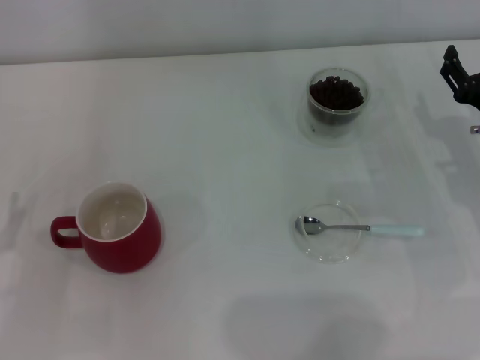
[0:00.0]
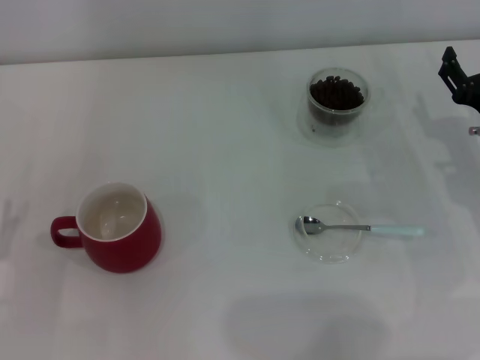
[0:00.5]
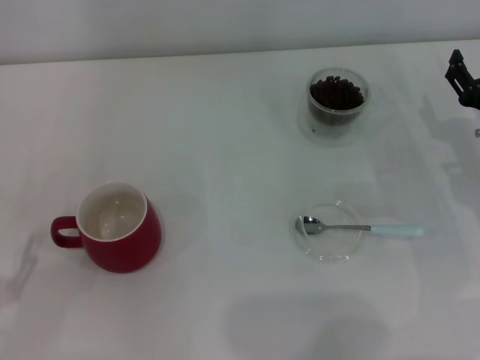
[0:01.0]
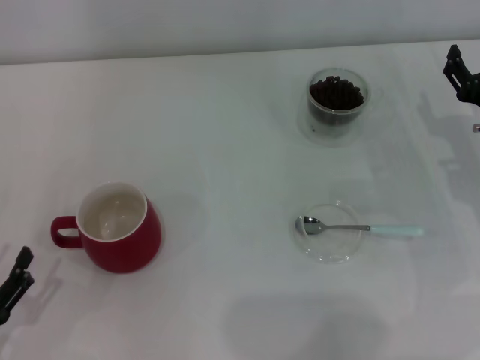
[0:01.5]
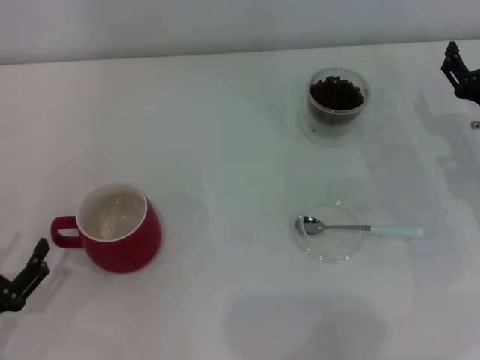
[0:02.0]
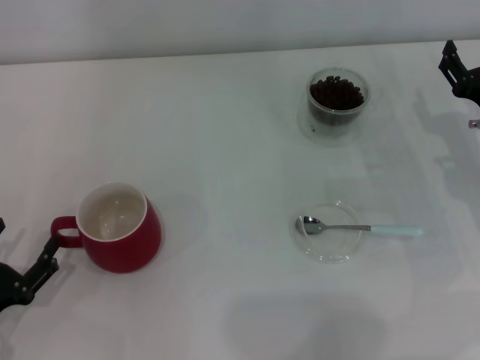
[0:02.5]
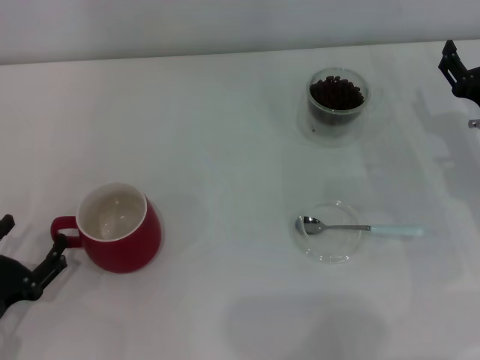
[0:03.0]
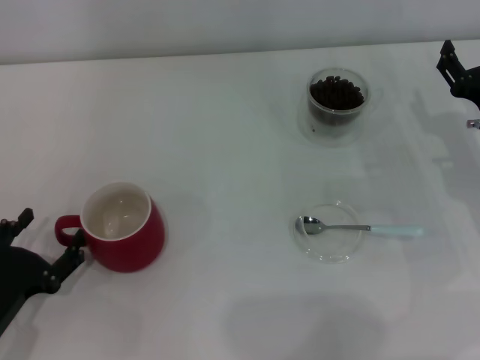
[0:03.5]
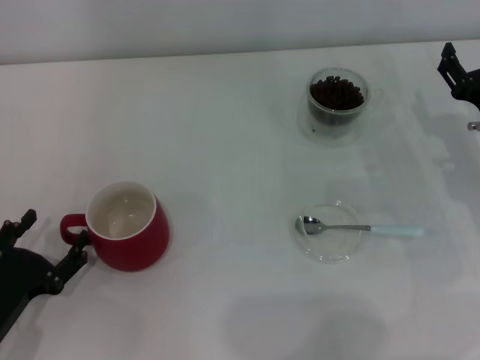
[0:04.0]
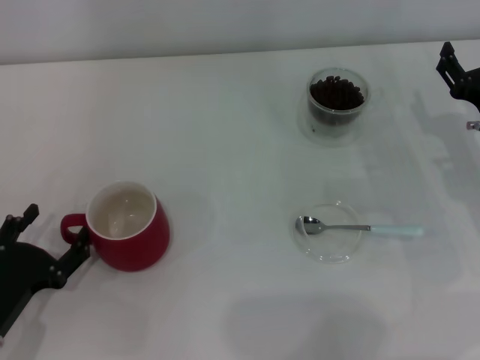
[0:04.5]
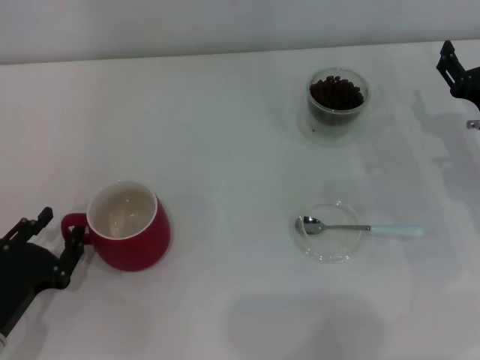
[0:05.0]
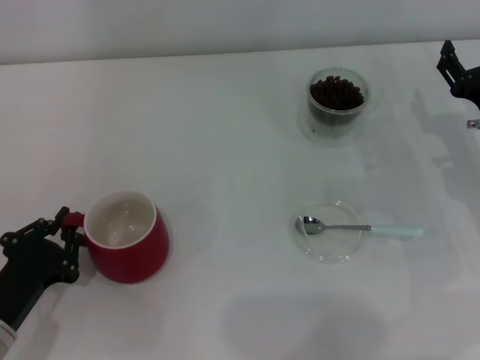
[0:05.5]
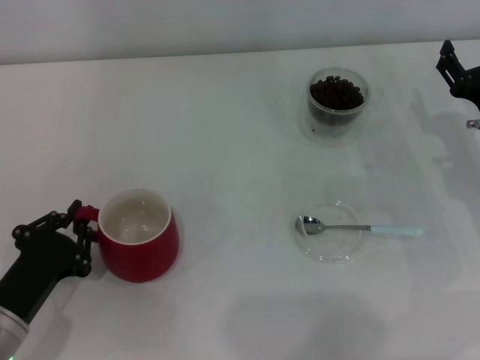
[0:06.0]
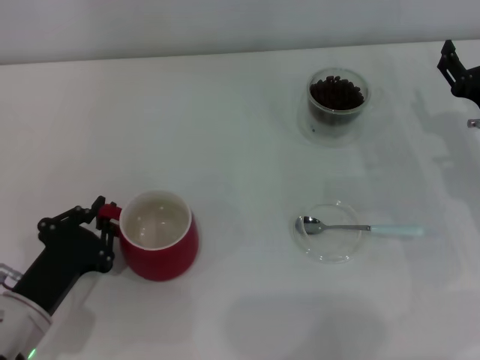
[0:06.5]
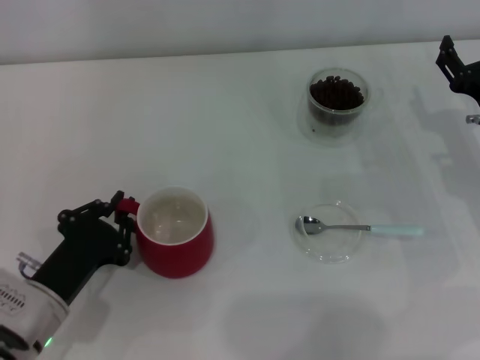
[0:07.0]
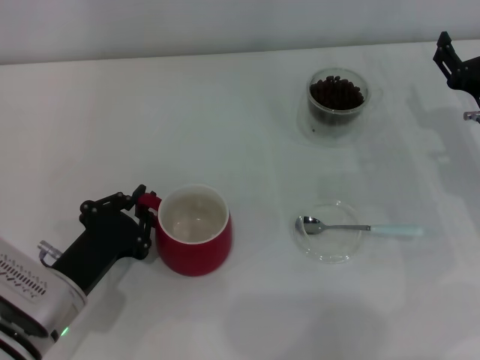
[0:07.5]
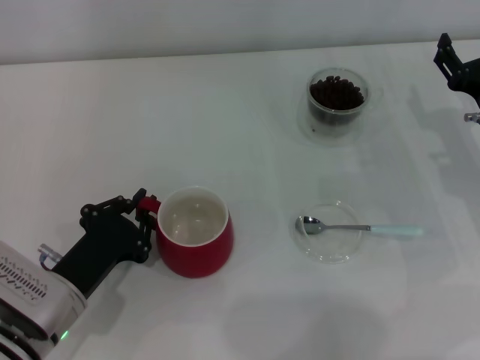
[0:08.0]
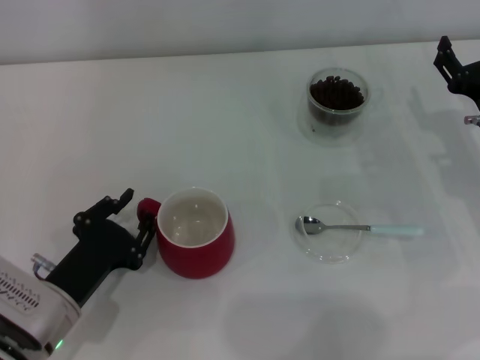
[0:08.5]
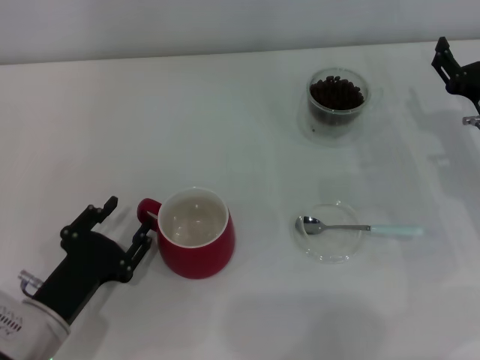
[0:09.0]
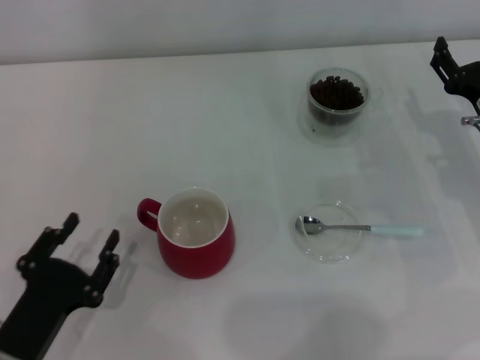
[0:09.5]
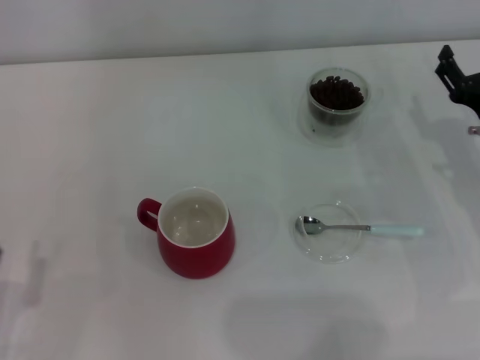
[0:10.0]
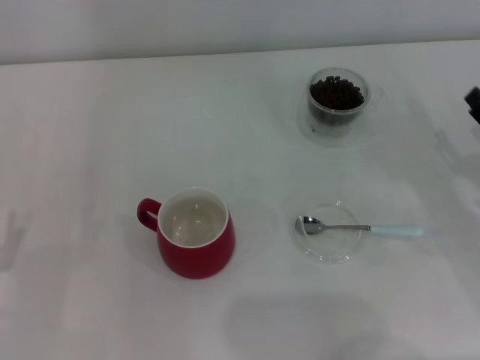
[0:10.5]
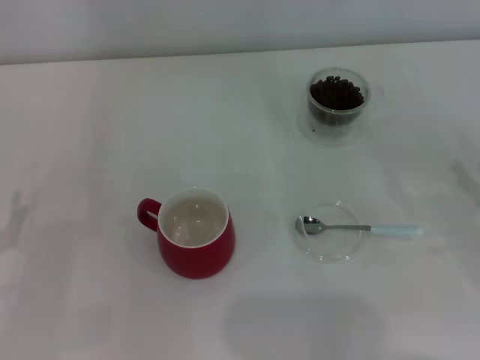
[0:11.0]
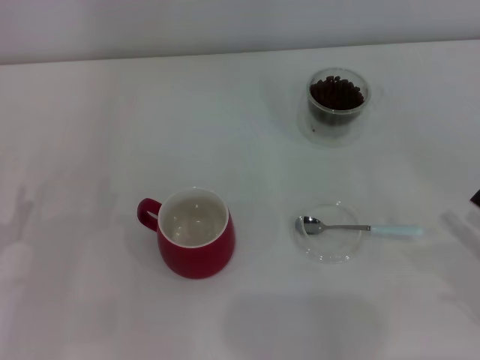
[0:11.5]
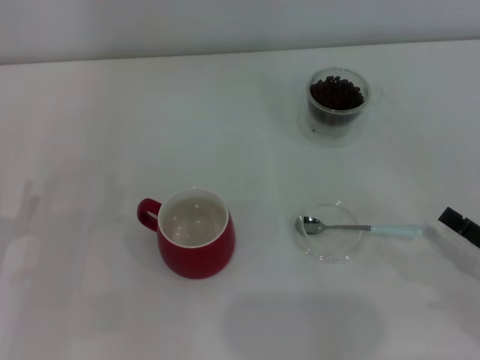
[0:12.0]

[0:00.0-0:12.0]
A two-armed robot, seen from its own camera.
Task of the whole recording: Use a blue spoon to take out the coffee beans from the glass and pour them into the red cup.
Step, 0:00.0 to 0:09.0: Move the cup to the center of view with the left gripper.
0:02.0 to 0:04.0: The grippers make only small movements.
0:04.0 to 0:06.0: The left gripper closes its fingers.
0:06.0 to 0:08.0: The left gripper changes place by approximately 5 cm.
0:08.0 to 0:10.0: The left gripper travels backward and to the left by some 10 cm, and opens up.
0:10.0 to 0:12.0: The right gripper heads backward, covering some 15 cm.

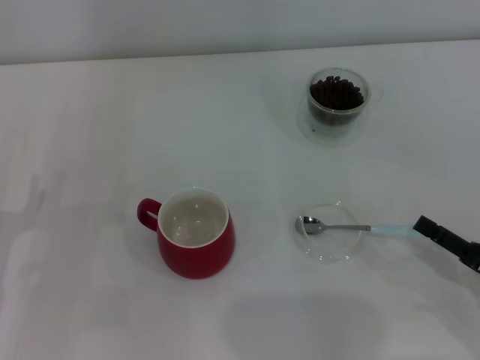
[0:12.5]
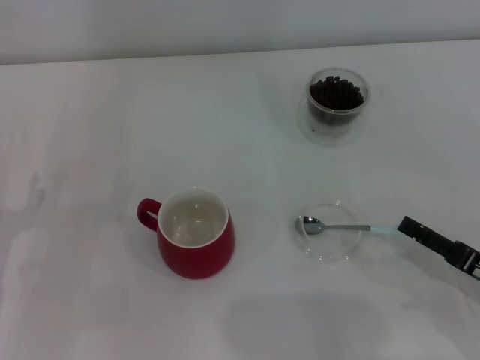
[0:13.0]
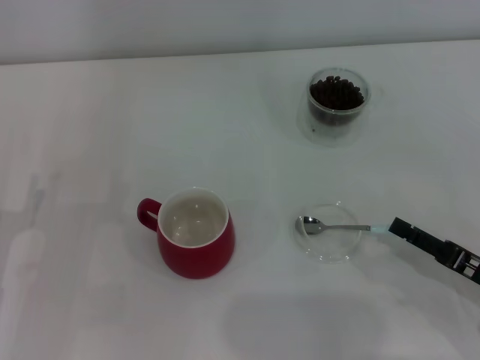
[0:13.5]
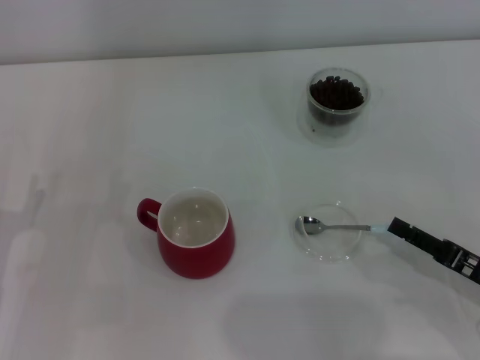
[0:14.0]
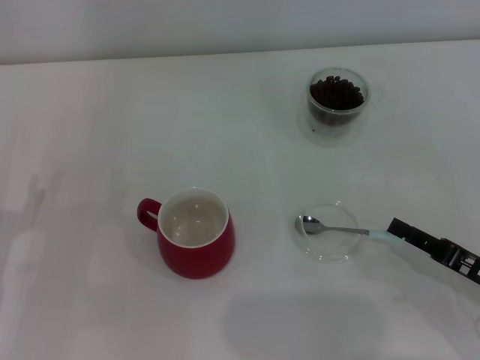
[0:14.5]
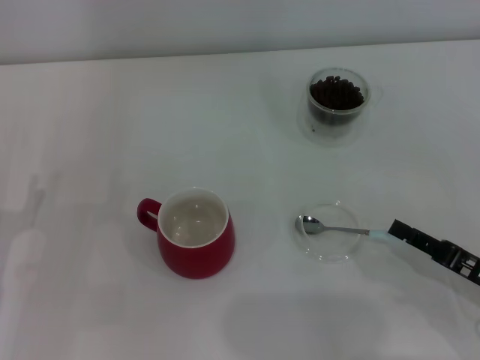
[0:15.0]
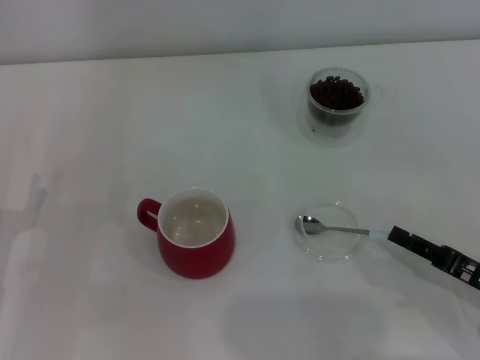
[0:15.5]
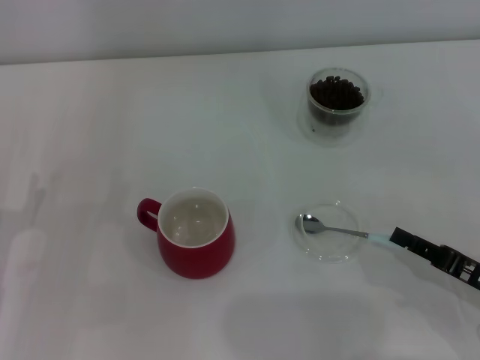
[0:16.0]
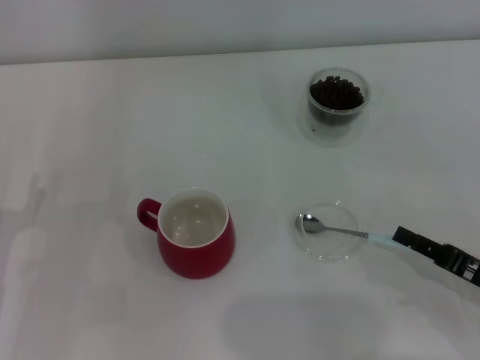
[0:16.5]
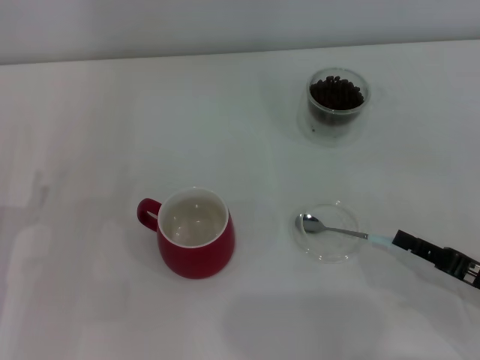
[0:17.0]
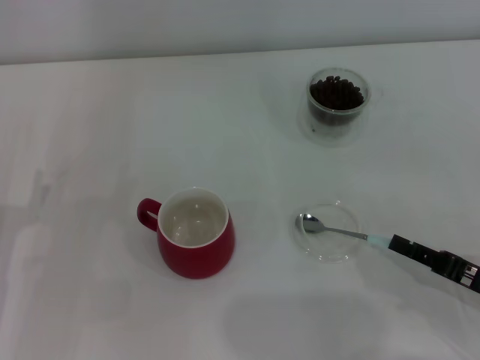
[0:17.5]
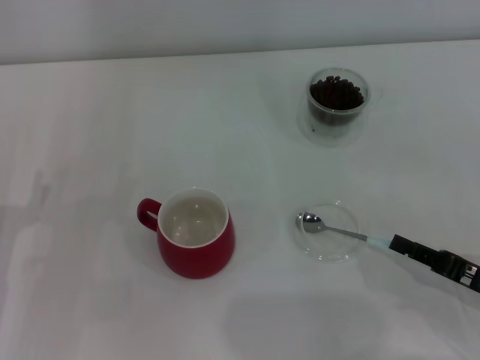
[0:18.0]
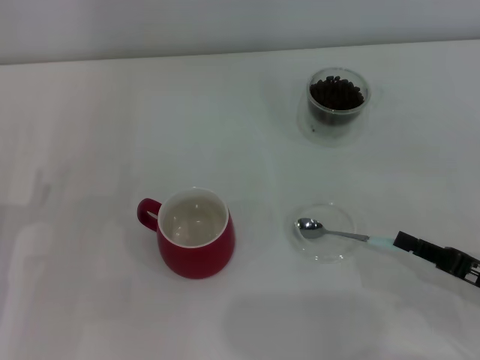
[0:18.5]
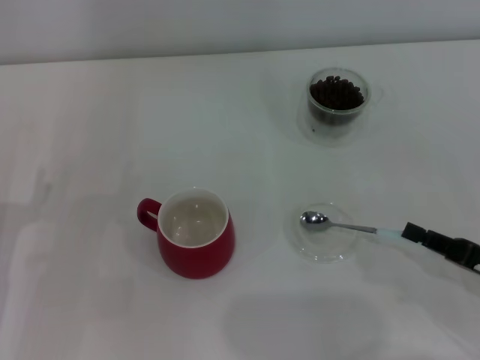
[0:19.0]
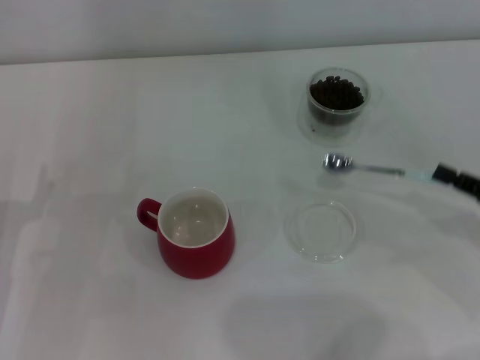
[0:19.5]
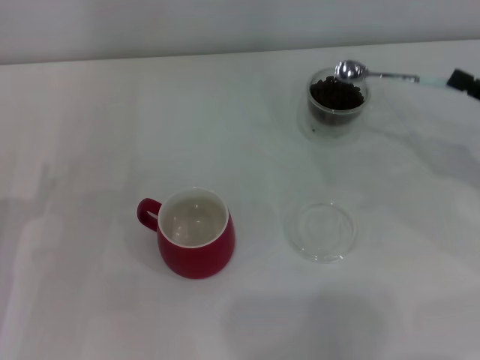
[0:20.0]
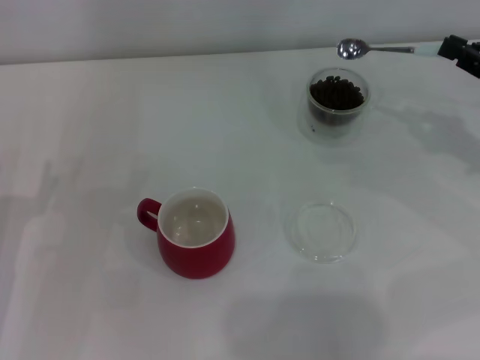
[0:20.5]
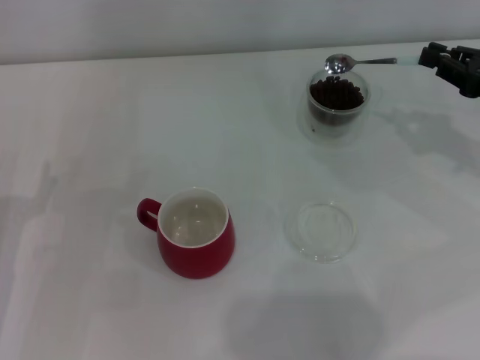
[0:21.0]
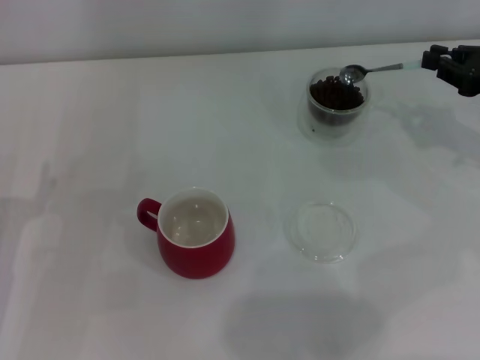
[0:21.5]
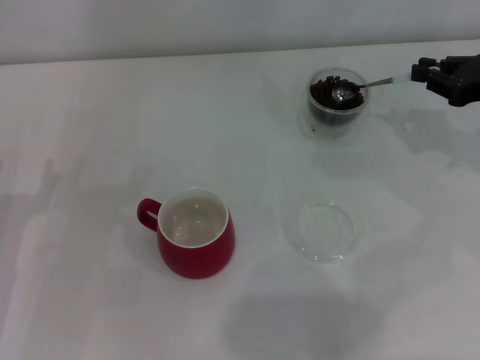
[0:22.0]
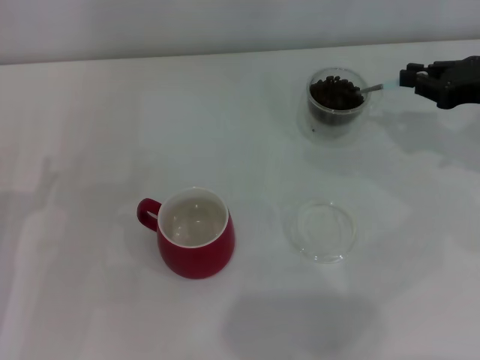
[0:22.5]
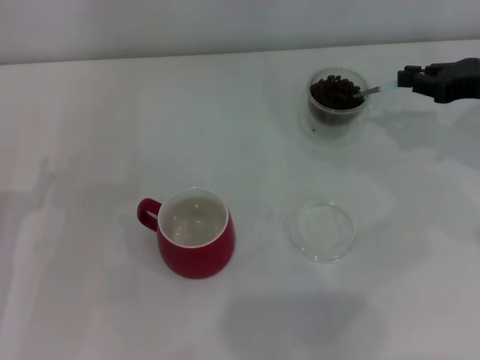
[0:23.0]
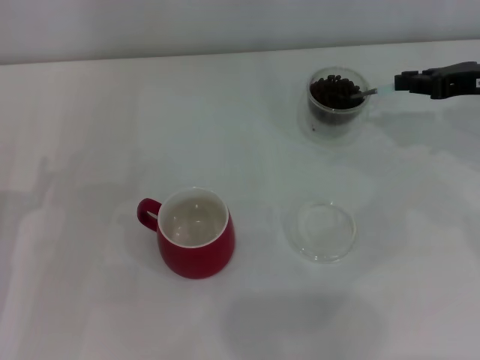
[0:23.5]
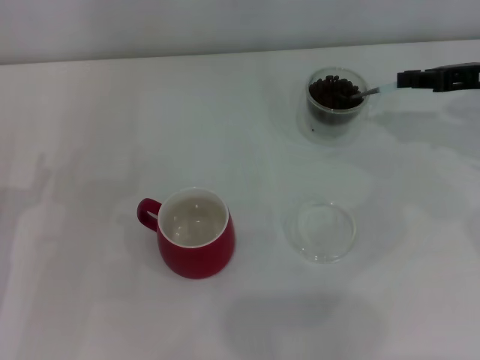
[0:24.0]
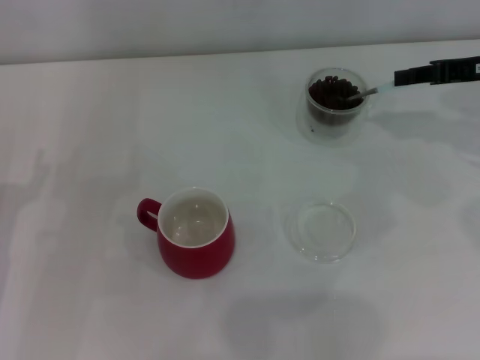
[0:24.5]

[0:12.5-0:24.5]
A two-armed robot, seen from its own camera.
Task of the whole recording: Use a blue spoon to take out the coffee beans from the glass and pour them into the red cup.
Step, 0:12.5 to 0:19.0: Pick up the spoon with the right gripper.
0:12.5 to 0:14.5: The right gripper closes.
0:14.5 to 0:16.5: The two grippers keep their place.
0:16.5 to 0:18.5: Both grippers stay about where they are.
0:18.5 to 0:20.5: The right gripper heads forward and upward, covering roughly 20 cm.

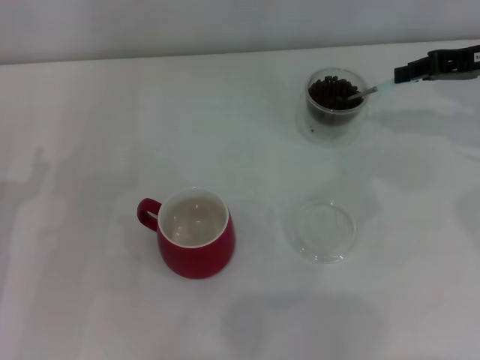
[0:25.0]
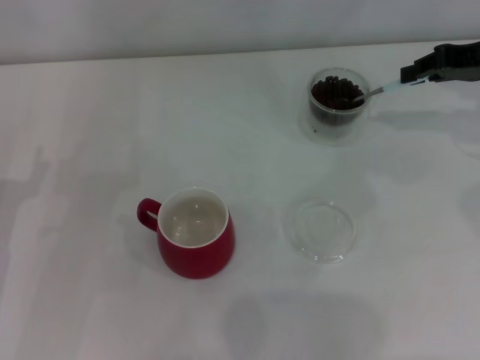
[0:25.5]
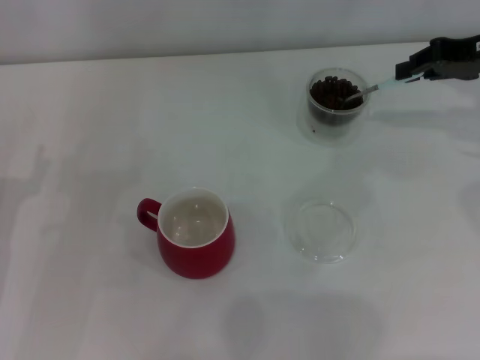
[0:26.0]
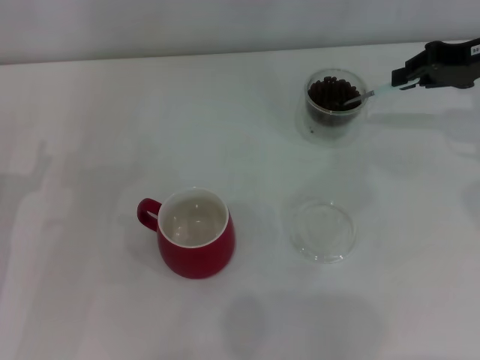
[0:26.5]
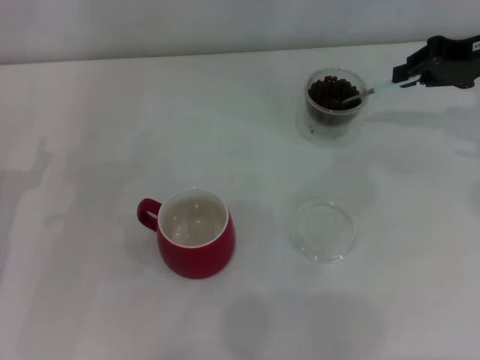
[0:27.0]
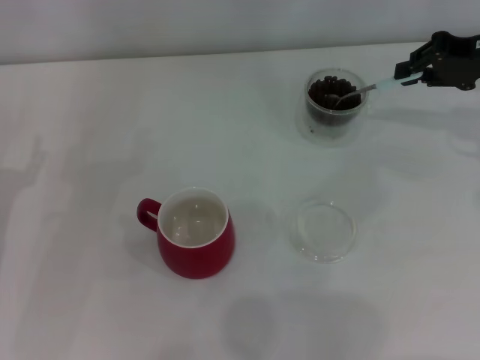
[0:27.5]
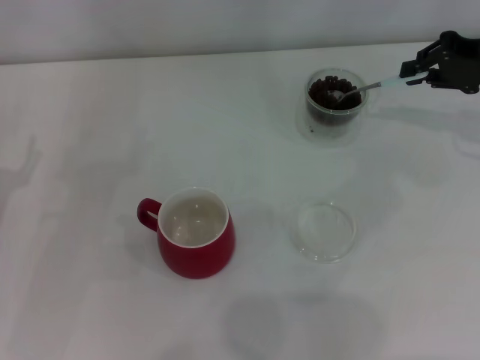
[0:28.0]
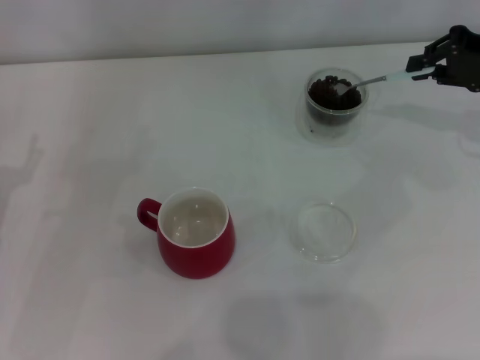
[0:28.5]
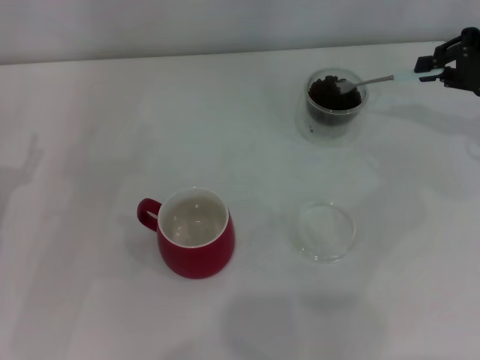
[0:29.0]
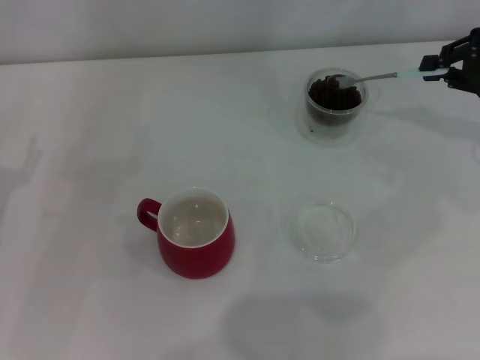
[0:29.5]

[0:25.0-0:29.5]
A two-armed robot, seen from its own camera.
Task of the whole recording: Use a blue spoon to take out the coffee beans from the glass and pour them into the red cup.
0:25.0 to 0:27.0: The grippers stay close to where they were, moving slightly.
0:27.0 to 0:29.5: The right gripper moves roughly 5 cm.
